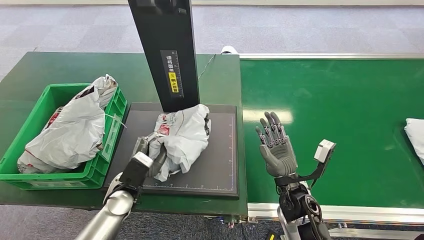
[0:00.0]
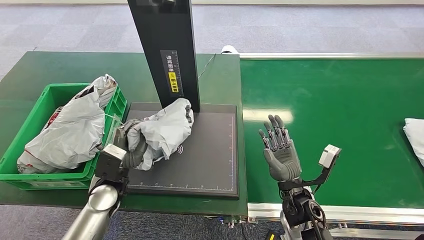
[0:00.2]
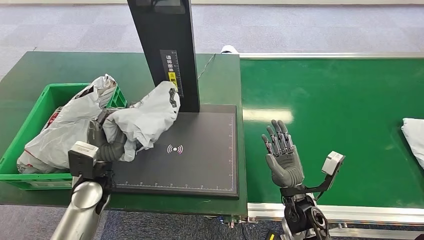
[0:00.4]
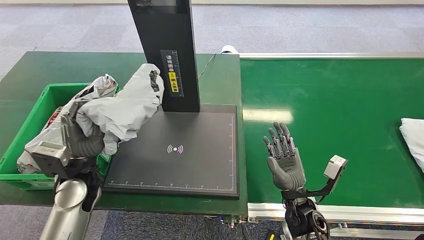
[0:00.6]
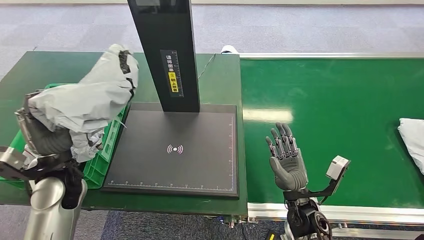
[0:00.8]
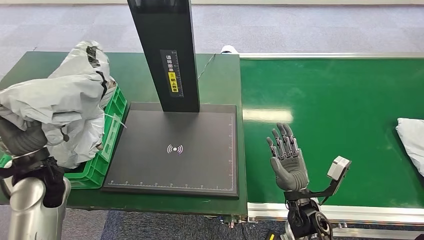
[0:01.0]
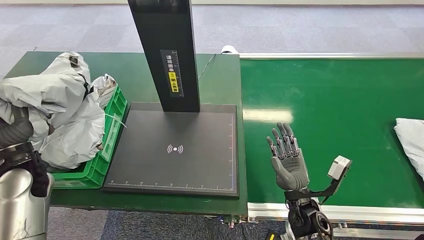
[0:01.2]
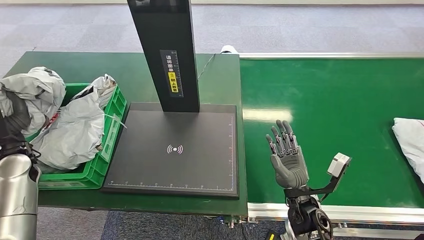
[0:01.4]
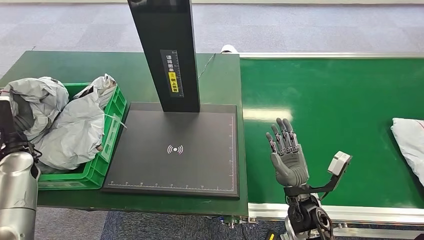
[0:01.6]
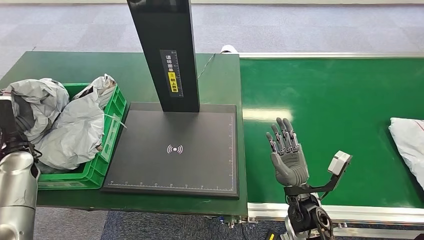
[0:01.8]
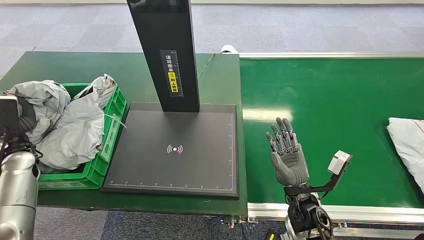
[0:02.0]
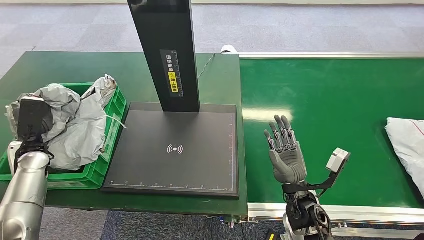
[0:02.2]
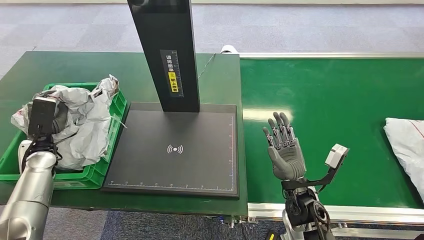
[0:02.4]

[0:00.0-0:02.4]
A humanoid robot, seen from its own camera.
Step, 0:02.0 to 0:02.4: Place the package into the parcel locker.
0:01.2 to 0:02.4: The left hand heads downward and forward, covering approximately 10 cm.

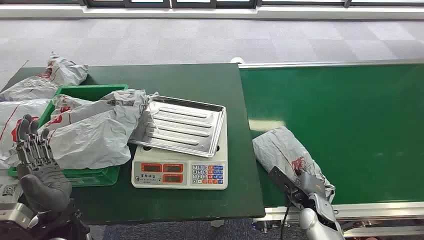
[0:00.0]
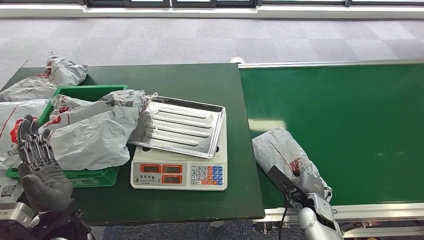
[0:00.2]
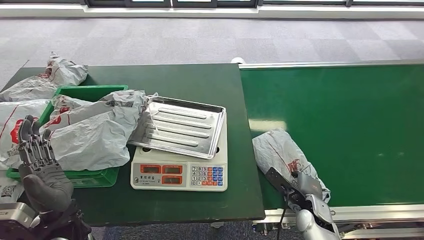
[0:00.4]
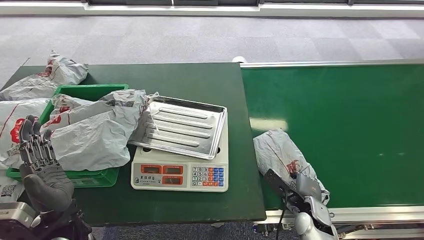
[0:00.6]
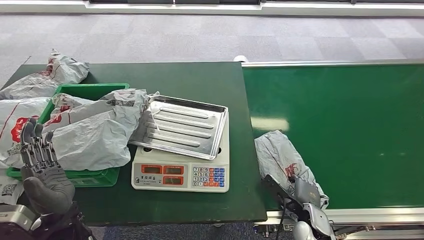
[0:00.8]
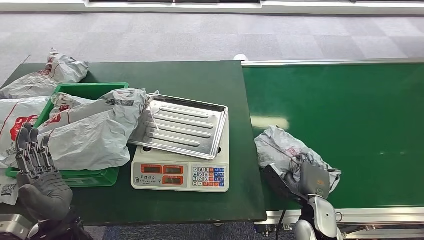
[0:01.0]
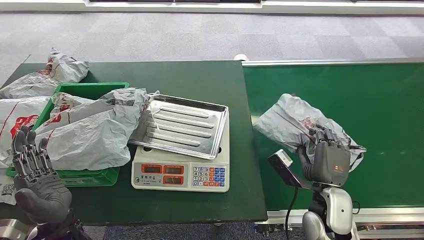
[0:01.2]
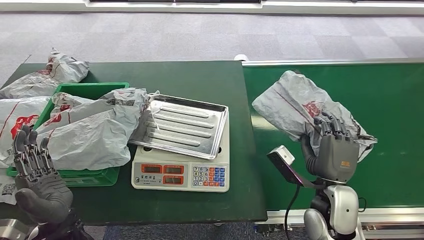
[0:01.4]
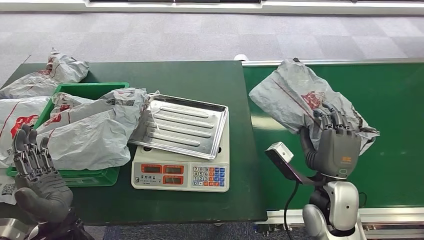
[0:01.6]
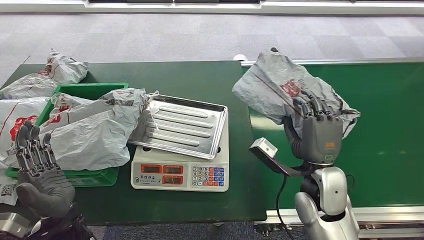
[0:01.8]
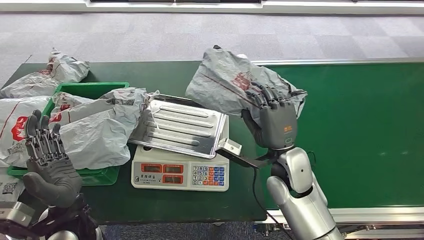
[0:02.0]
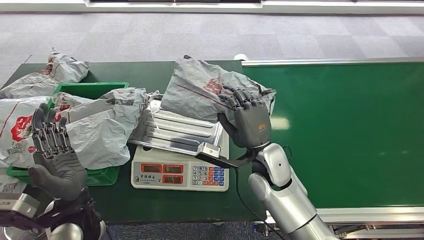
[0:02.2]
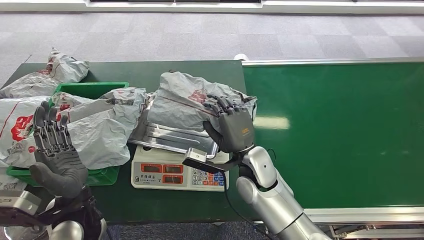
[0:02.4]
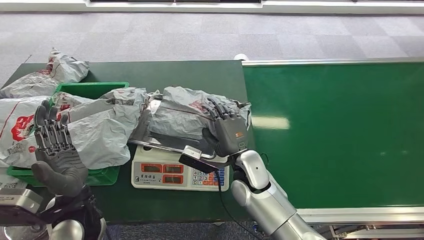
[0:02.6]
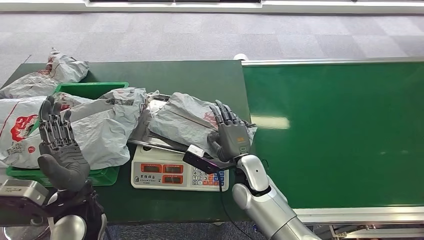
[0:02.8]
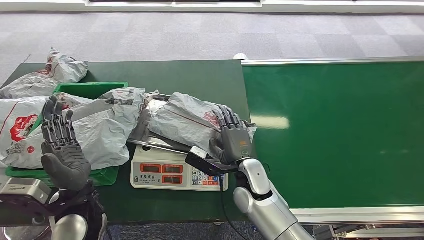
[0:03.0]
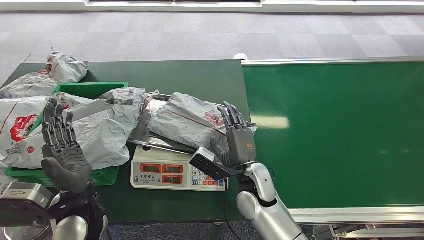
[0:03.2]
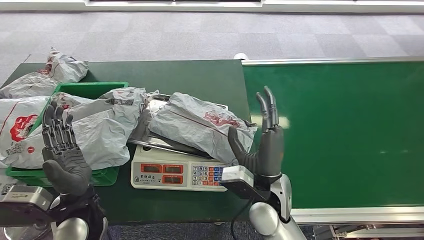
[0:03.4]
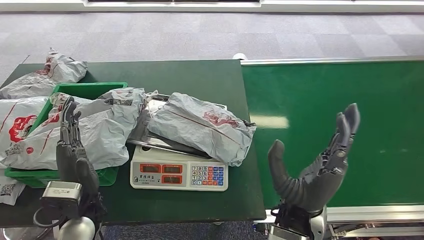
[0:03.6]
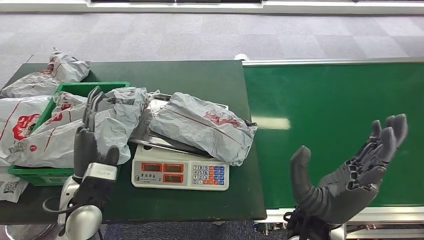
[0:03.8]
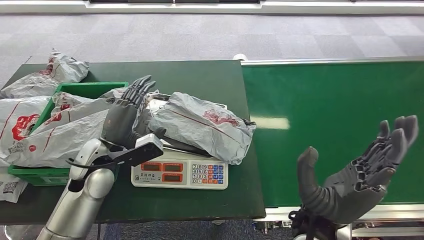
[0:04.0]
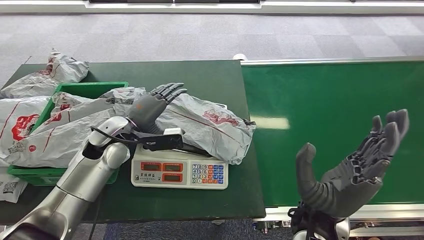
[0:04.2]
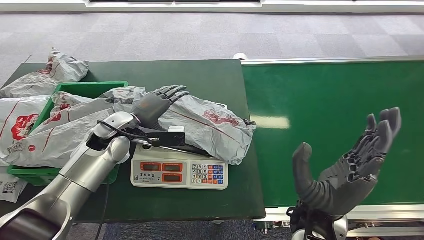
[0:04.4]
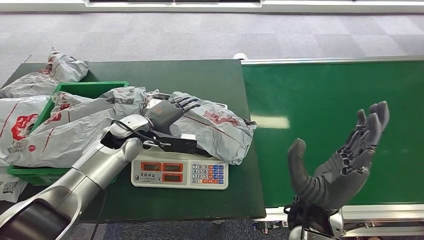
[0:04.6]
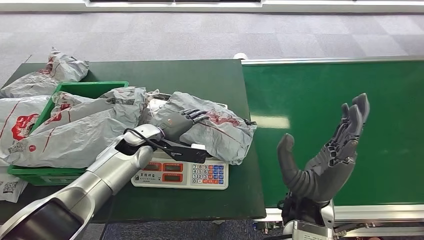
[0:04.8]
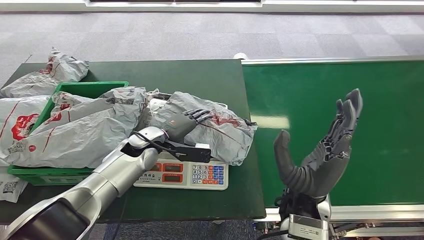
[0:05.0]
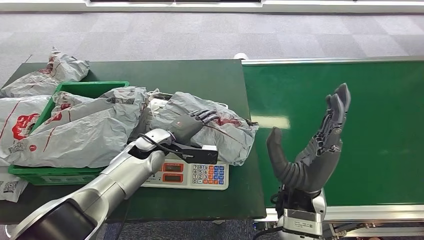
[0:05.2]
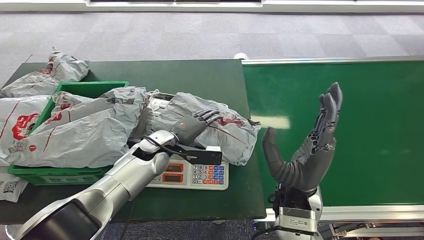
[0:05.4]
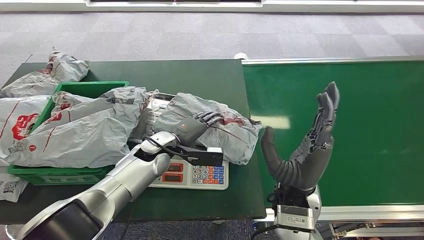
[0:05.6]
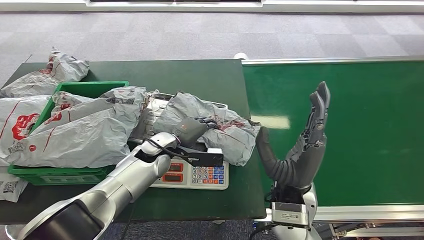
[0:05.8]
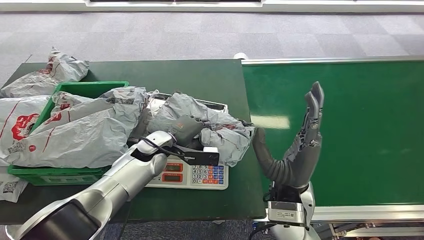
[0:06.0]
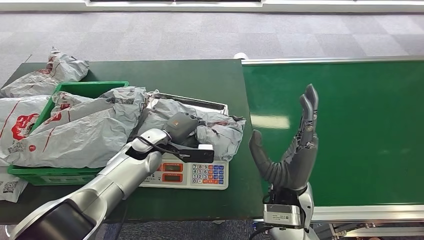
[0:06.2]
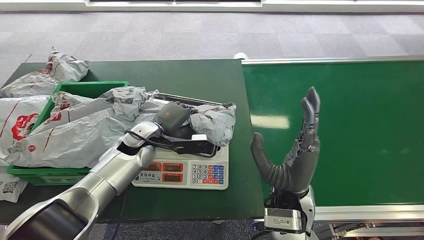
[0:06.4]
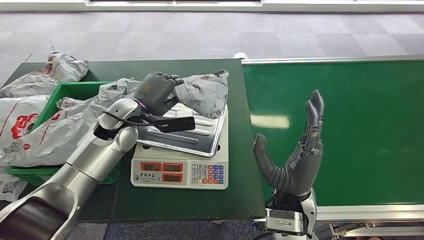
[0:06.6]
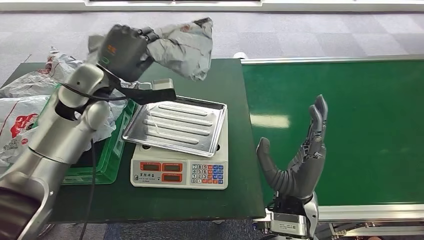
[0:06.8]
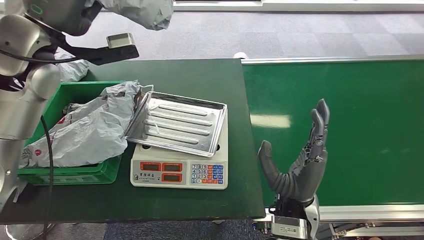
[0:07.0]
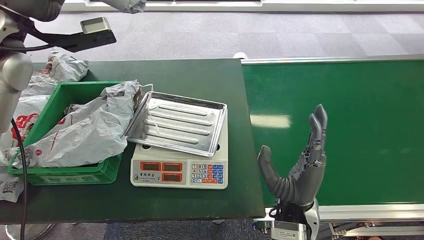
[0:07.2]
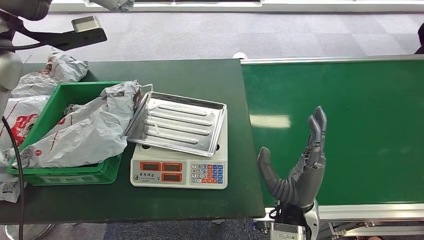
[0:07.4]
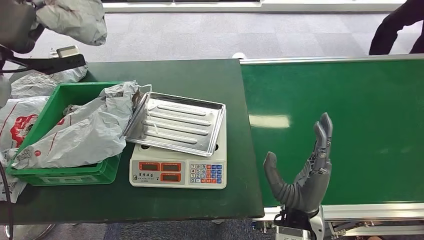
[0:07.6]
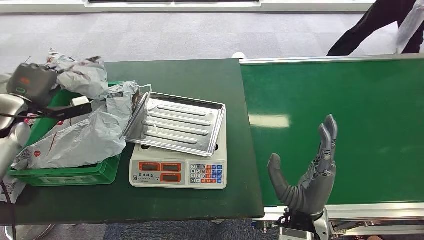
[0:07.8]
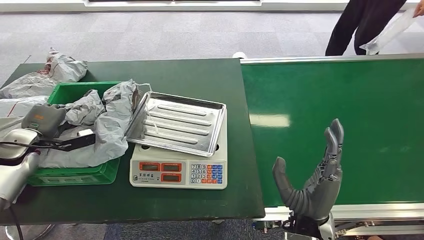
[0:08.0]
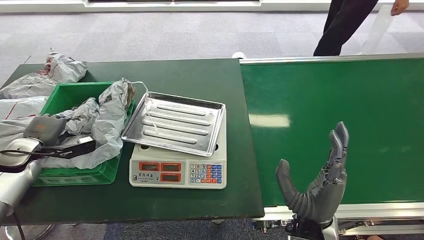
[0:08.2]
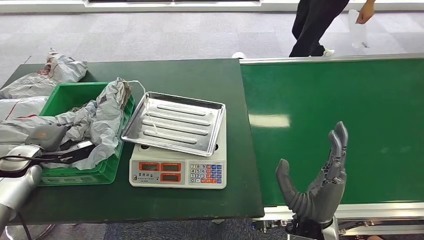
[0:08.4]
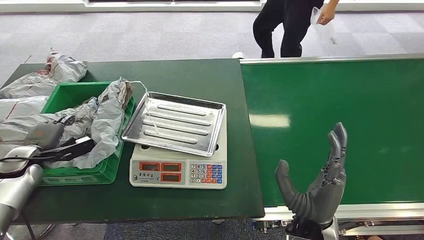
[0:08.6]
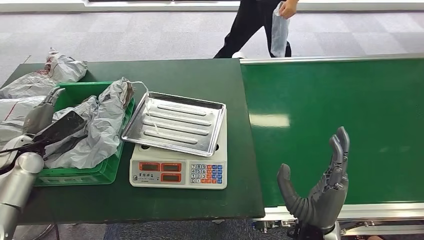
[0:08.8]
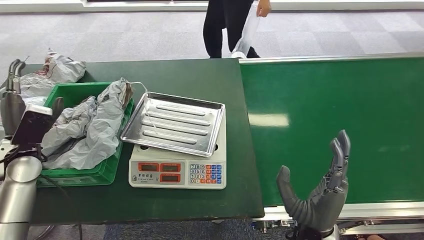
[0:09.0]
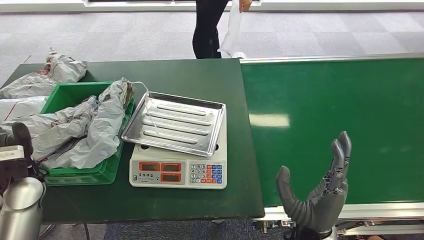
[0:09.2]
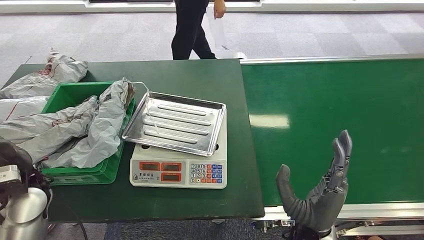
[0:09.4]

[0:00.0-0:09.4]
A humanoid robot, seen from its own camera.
Step, 0:00.0 to 0:01.8: Pick up the package from the conveyor belt.
Step, 0:02.0 to 0:04.4: Place the package onto the inbound machine.
Step, 0:04.6 to 0:07.2: Pick up the package from the inbound machine.
Step, 0:07.4 to 0:09.4: Place the package into the parcel locker.
0:04.8 to 0:06.2: The hands stay close to where they were, moving slightly.
